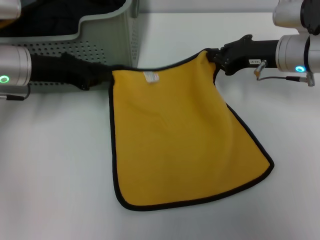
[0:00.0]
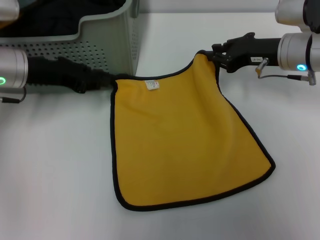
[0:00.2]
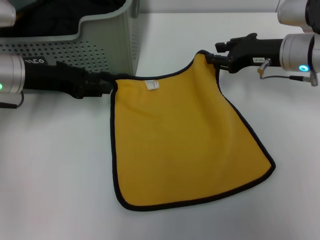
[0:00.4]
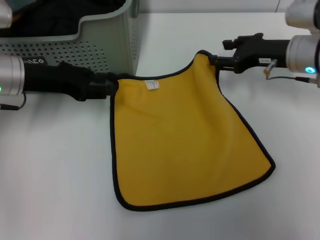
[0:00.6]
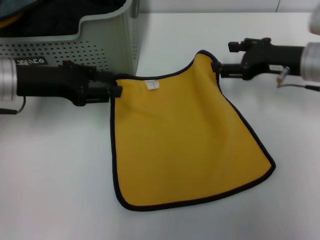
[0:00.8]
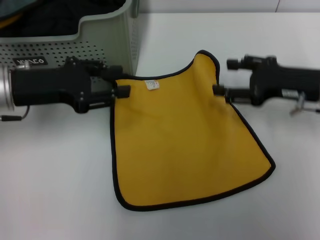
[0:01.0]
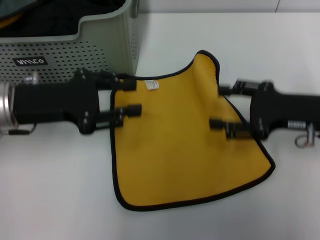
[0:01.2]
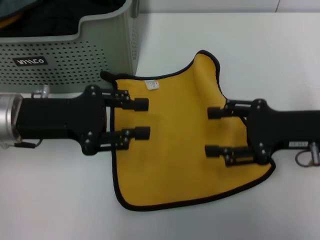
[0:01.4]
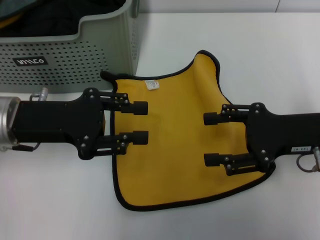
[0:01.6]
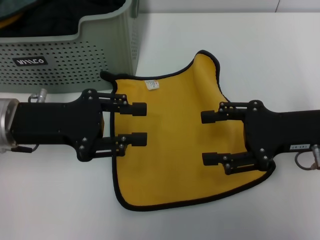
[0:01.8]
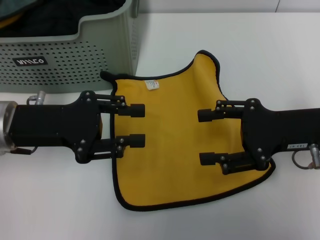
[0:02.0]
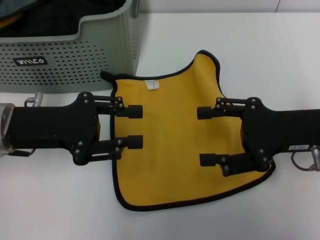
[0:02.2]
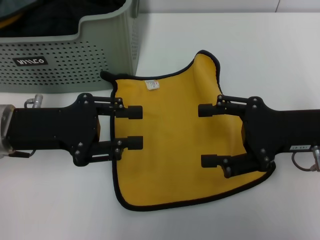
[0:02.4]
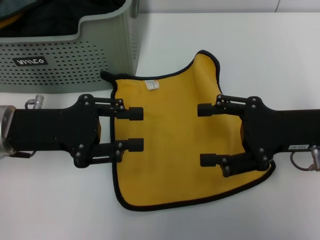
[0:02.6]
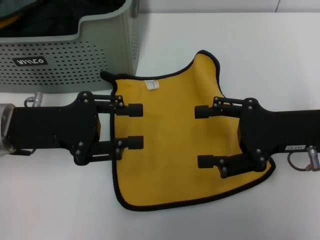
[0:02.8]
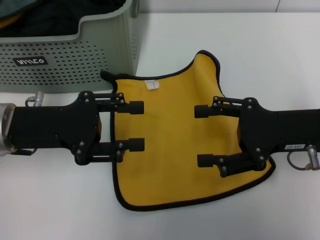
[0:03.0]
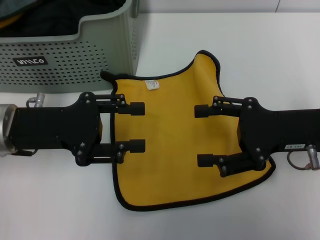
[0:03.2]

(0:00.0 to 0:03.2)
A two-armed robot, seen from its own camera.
Task of the whole recording: pick up the towel from the storage box and lay it flat on the table.
0:00.0 - 0:01.6: Both grippers travel together backward, about 10 cm. The right gripper opens its fingers. Meanwhile the left gripper opens its fingers.
0:01.6 - 0:03.2: The grippers make only small movements.
